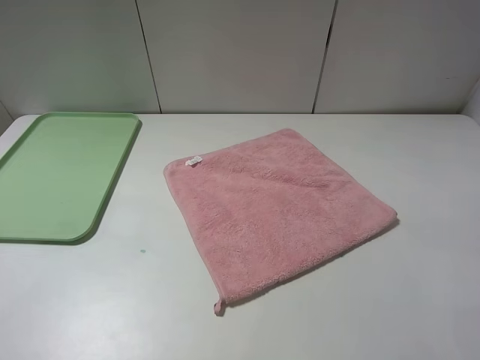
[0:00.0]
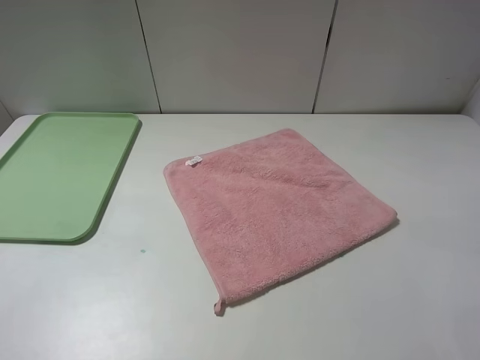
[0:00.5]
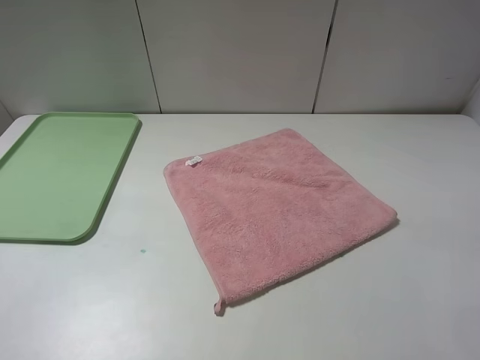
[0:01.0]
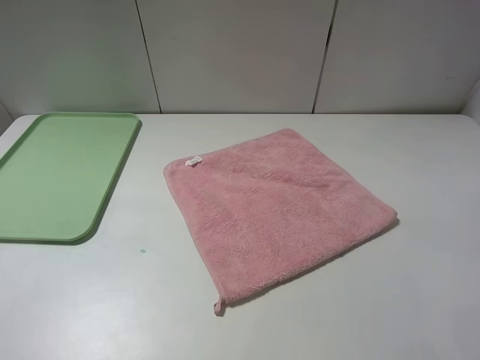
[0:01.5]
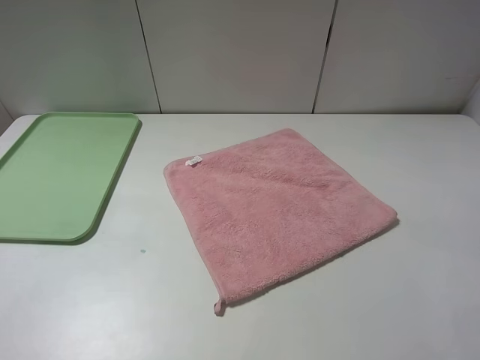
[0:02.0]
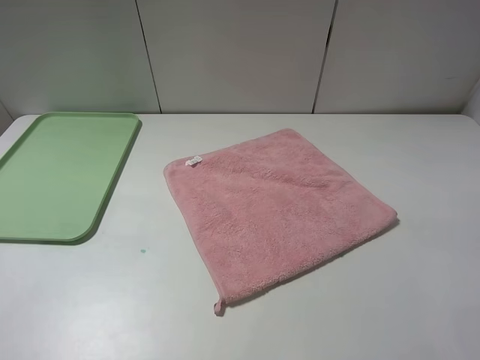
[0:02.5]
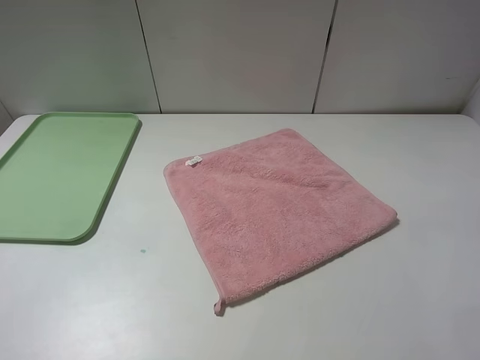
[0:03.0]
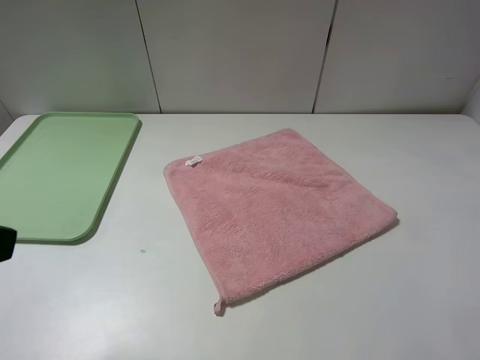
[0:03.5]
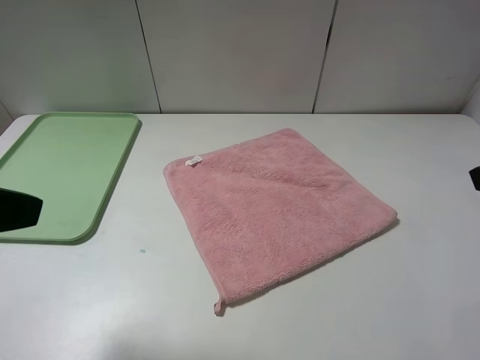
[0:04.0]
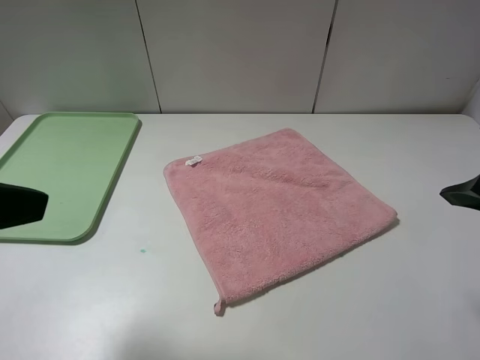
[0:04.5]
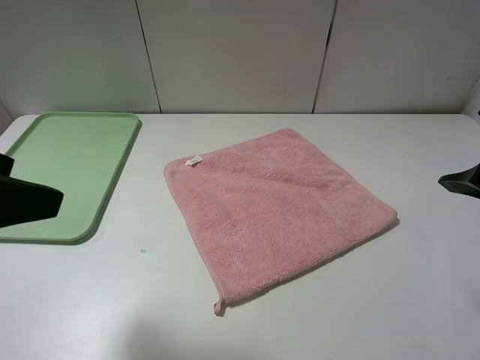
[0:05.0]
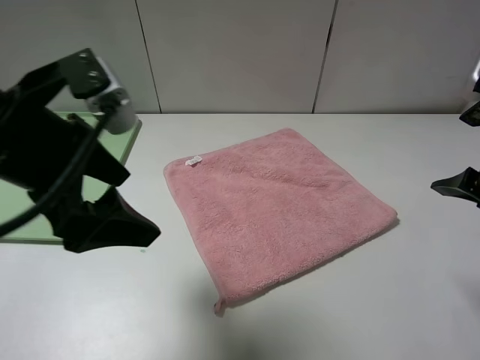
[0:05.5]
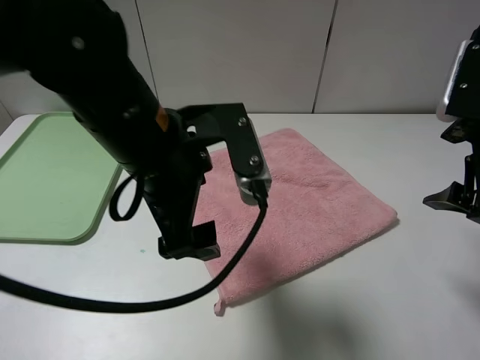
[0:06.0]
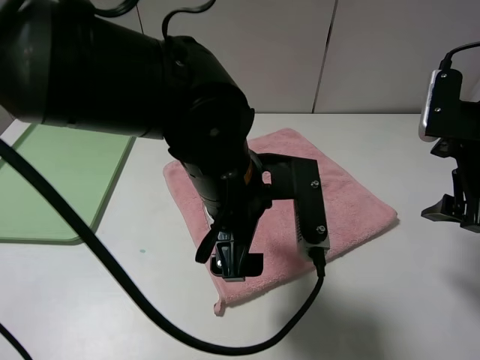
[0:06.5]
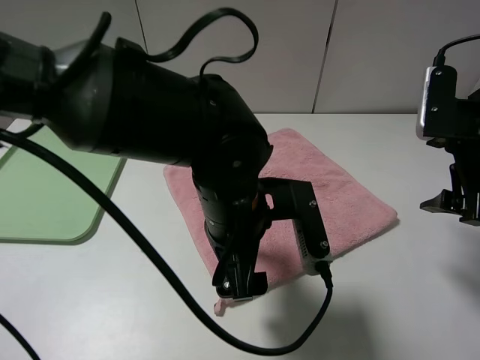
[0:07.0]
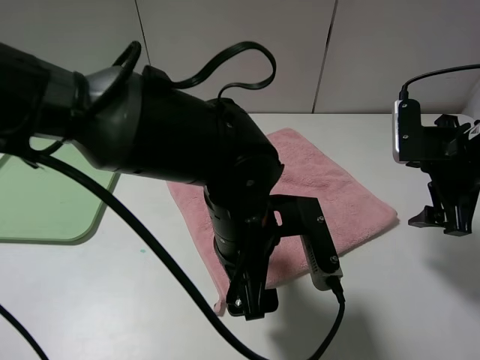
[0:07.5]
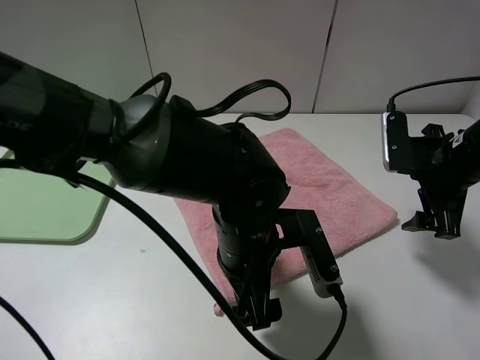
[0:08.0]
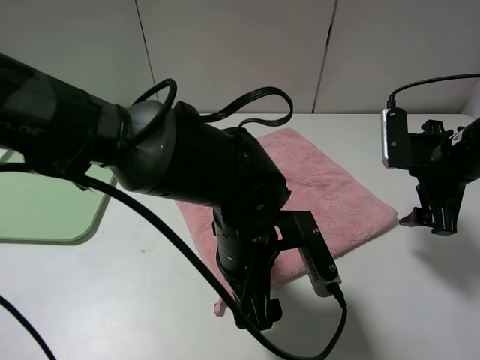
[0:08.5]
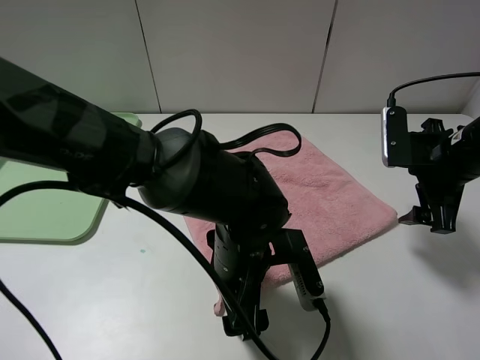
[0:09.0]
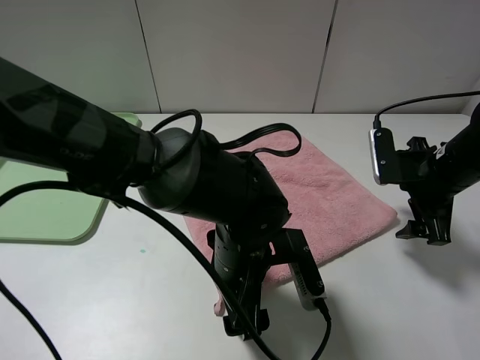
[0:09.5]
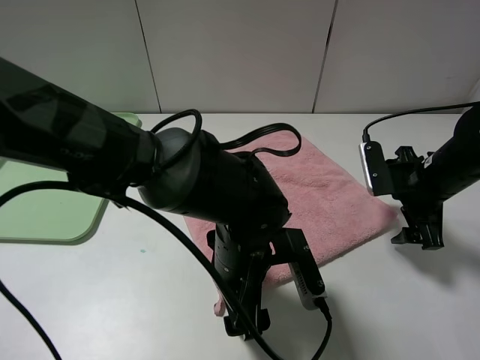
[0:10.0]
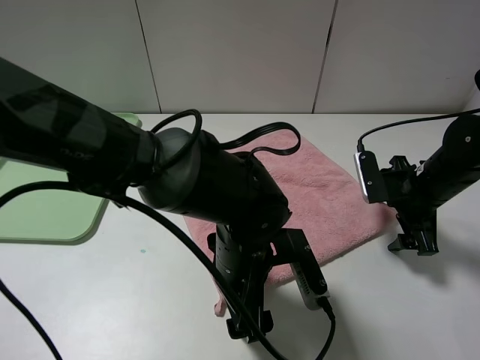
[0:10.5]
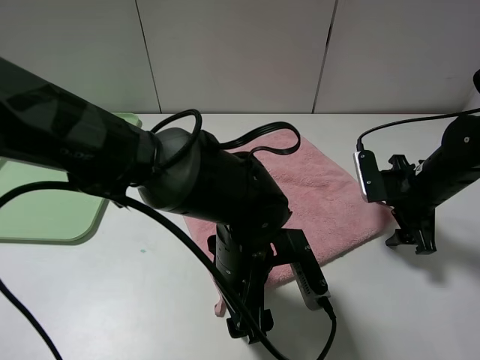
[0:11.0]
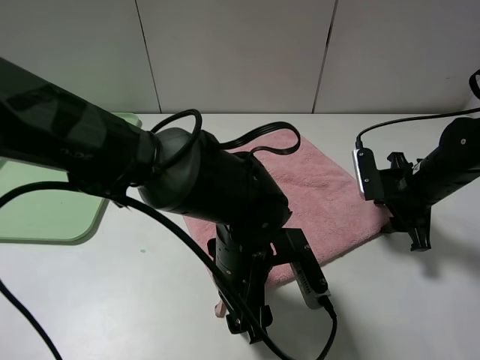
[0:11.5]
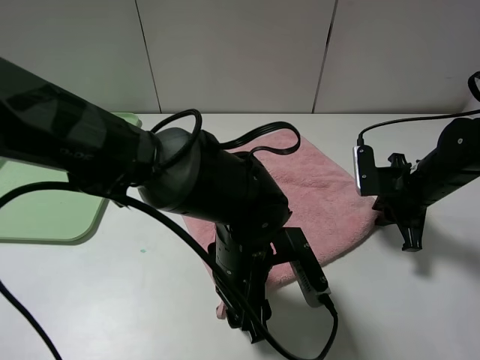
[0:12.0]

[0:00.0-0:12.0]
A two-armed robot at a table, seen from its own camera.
0:00.0 to 0:02.0: Neither gripper changes place.
0:02.0 to 0:04.0: The left gripper heads forward, covering roughly 10 cm.
0:04.0 to 0:06.0: The right gripper is displaced forward and downward by roughly 10 cm; the left gripper heads to the right and forward, covering roughly 25 cm.
0:06.0 to 0:08.0: The right gripper shifts about 10 cm downward and forward. The left gripper travels downward and to the right by approximately 15 cm.
0:08.0 to 0:10.0: The right gripper travels downward by about 5 cm.
0:10.0 to 0:12.0: The right gripper closes up.

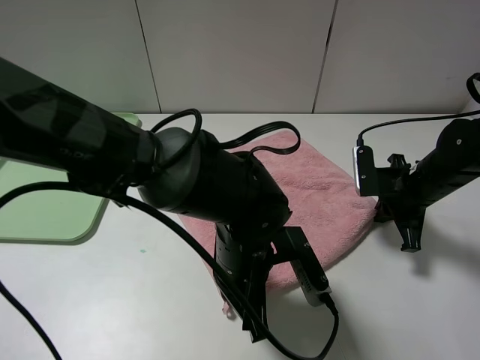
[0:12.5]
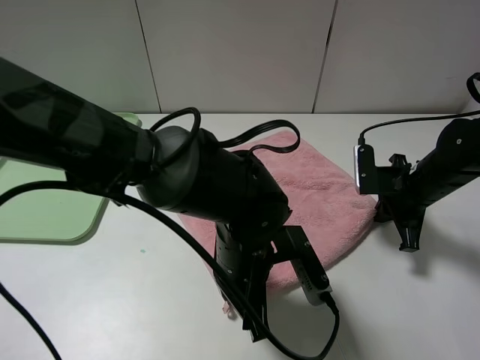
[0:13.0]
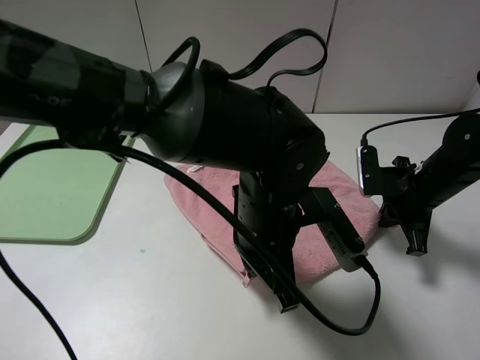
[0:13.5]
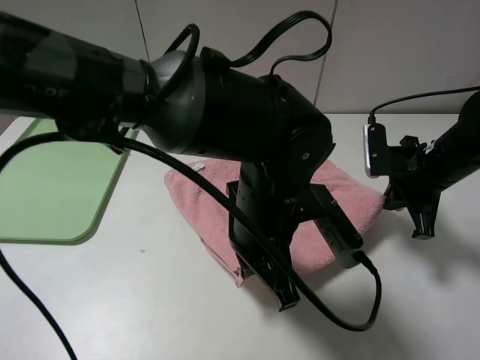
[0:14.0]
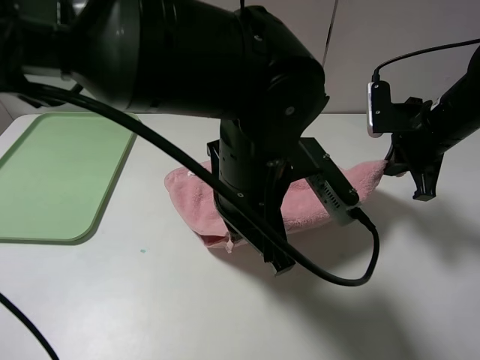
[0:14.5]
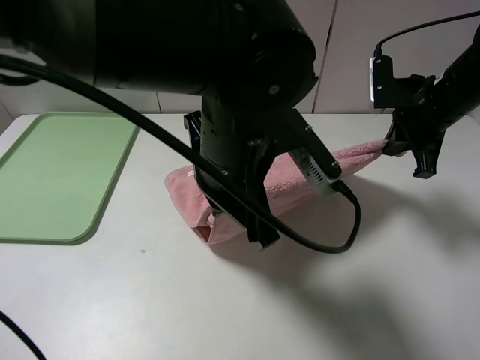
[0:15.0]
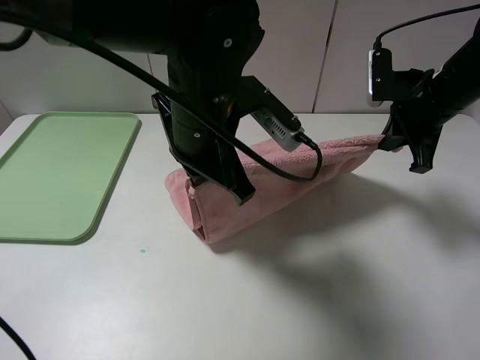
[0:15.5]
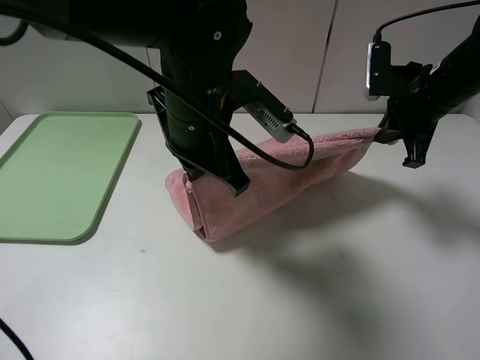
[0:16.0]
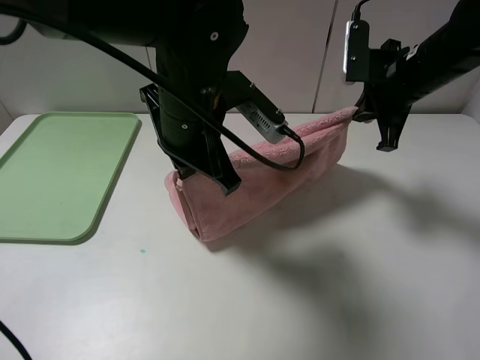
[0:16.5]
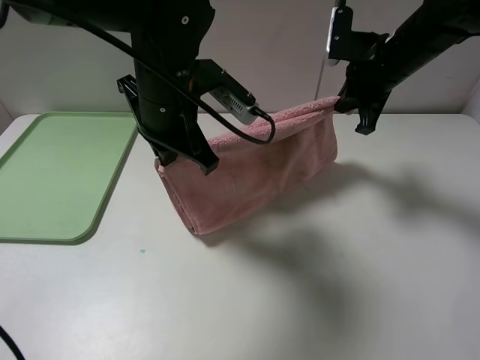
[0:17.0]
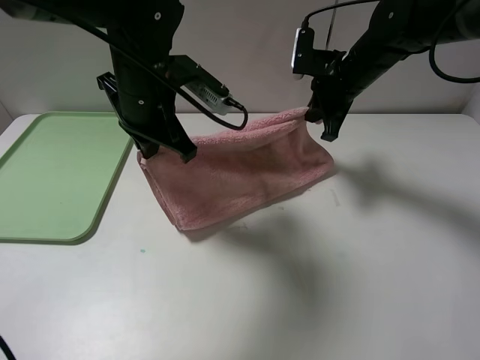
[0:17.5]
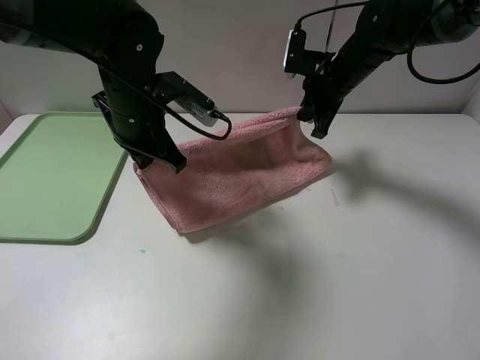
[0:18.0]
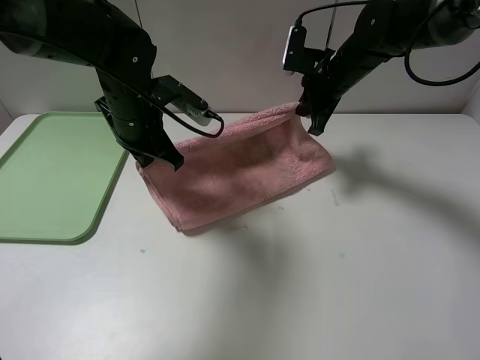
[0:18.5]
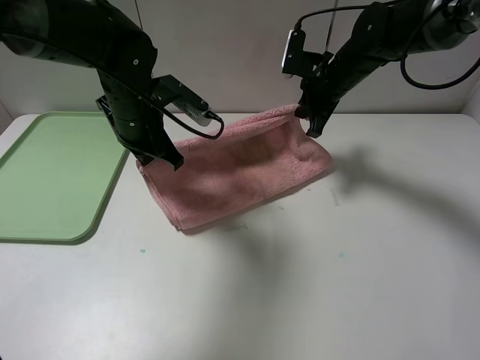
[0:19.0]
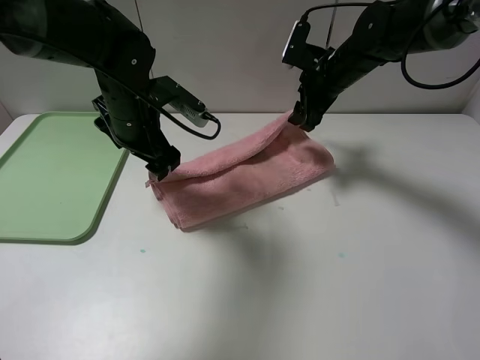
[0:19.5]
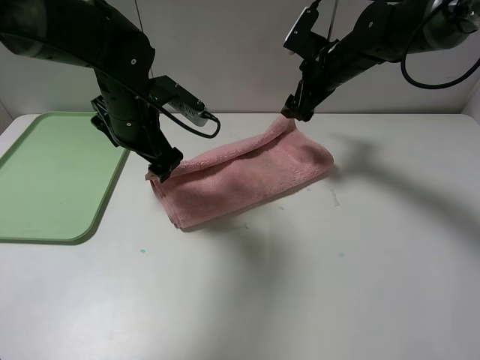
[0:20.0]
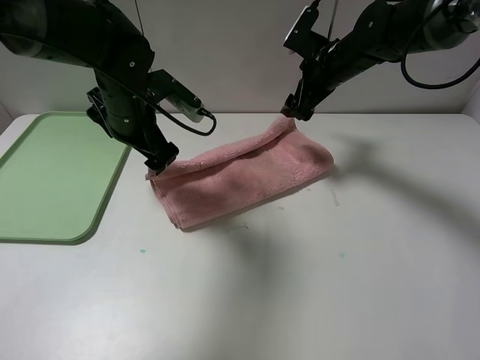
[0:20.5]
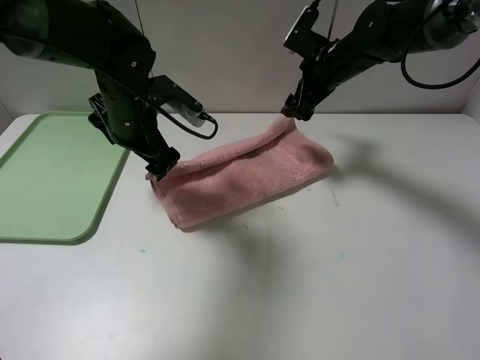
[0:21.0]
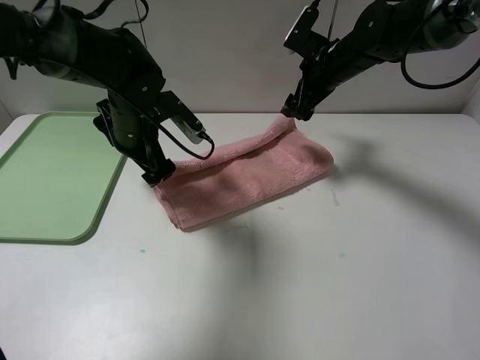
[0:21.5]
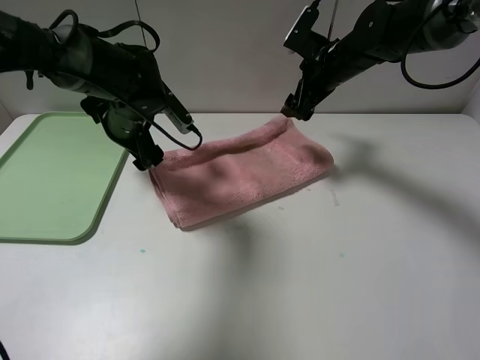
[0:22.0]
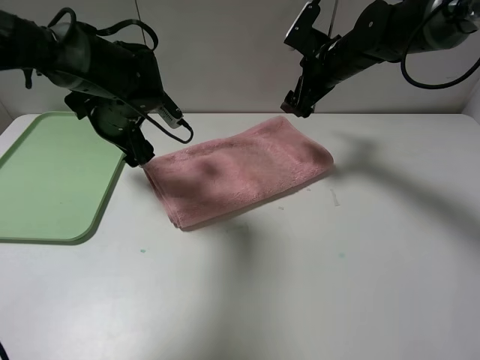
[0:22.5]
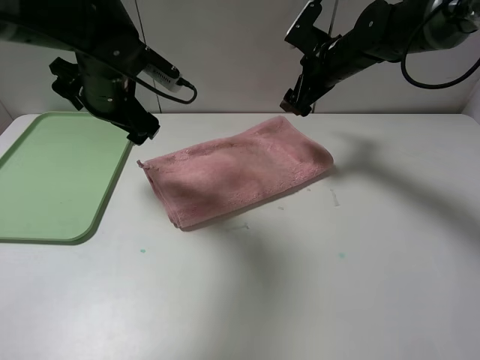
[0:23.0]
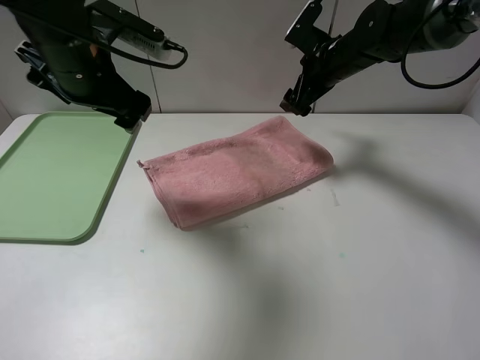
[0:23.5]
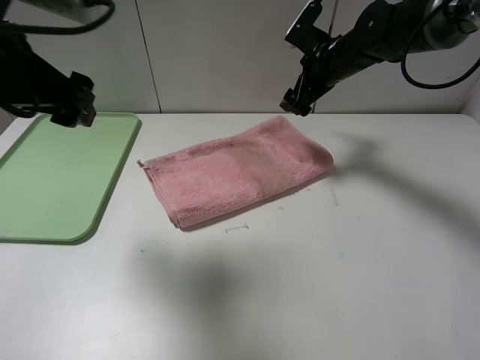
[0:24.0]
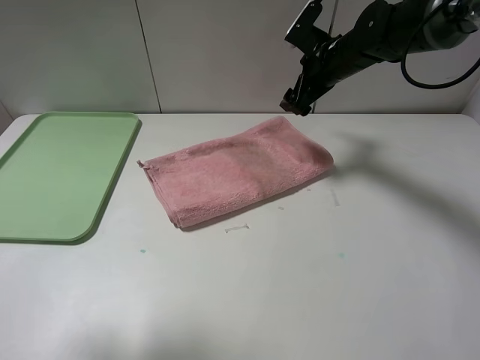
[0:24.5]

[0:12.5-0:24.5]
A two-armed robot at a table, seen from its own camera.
Step, 0:12.5 to 0:22.0: Fold the pink towel upwards.
0:12.5 to 0:14.5: Both grippers travel together upward, roughly 10 cm.
0:14.5 to 0:16.5: The left gripper shifts some 10 cm forward and to the left, while the right gripper shifts by approximately 5 cm.
0:16.5 to 0:18.5: The right gripper travels forward and to the left by approximately 10 cm. Meanwhile the left gripper travels to the left, forward and downward by some 15 cm.
0:18.5 to 0:20.5: The left gripper opens up; the right gripper opens its fingers.
0:22.5 to 0:24.5: The left gripper moves backward, upward and to the left, roughly 35 cm.

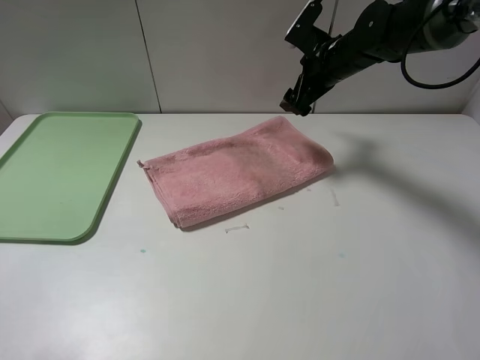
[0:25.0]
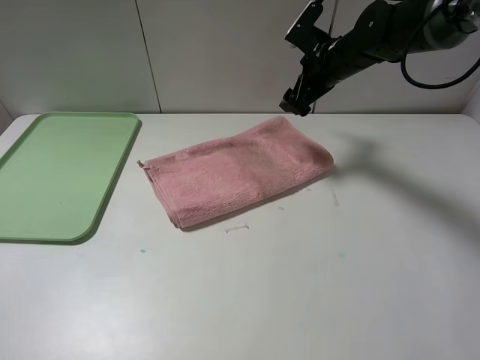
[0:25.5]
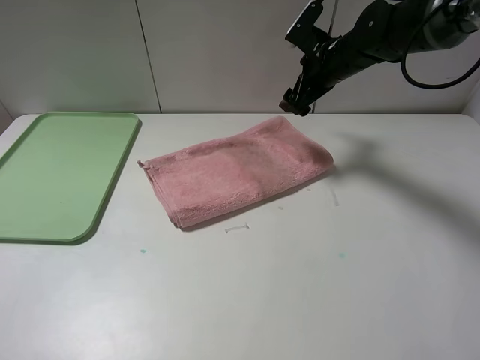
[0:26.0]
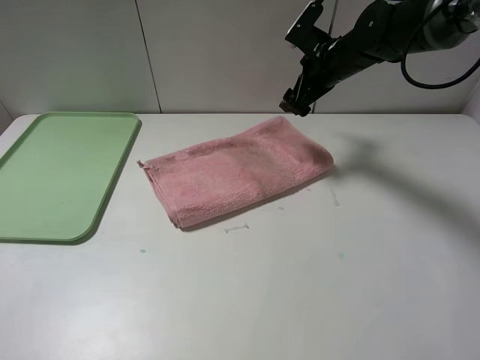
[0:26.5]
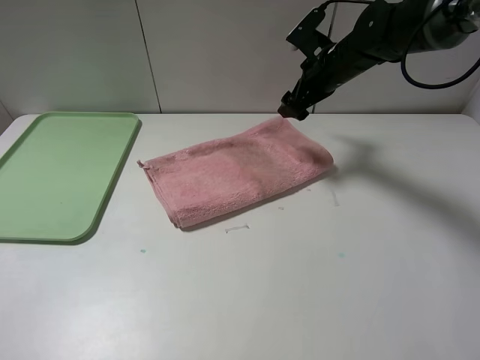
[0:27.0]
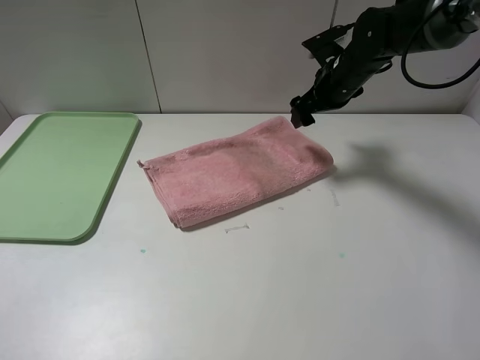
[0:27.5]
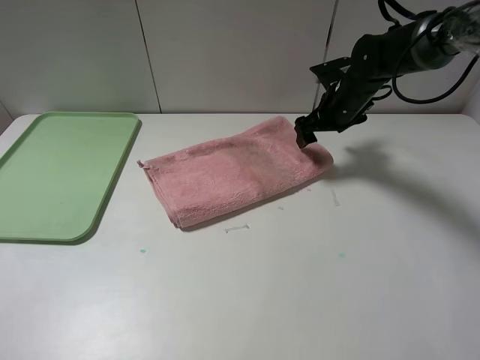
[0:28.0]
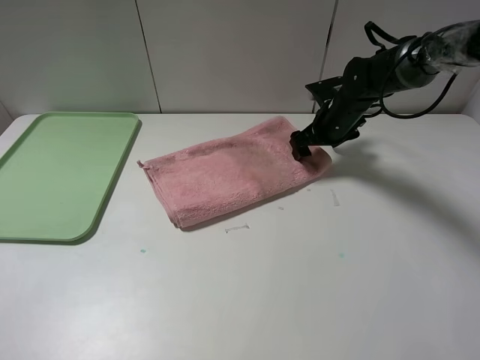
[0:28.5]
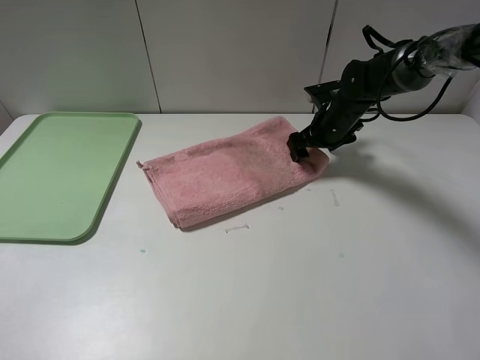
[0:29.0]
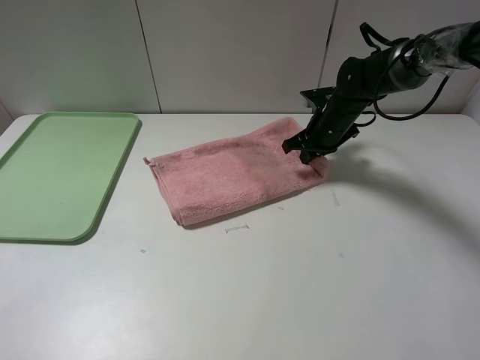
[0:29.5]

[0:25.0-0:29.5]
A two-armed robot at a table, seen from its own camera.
0:27.0 to 0:29.5: The right gripper is displaced downward by about 10 cm, and closes its fingers.
